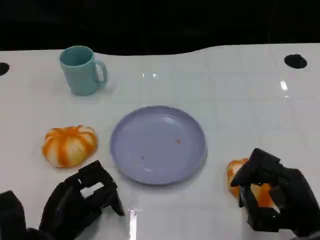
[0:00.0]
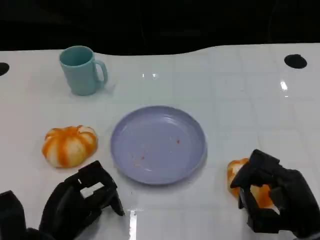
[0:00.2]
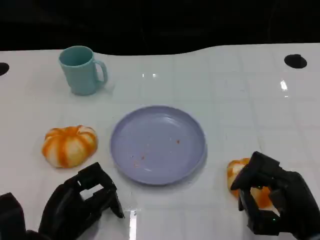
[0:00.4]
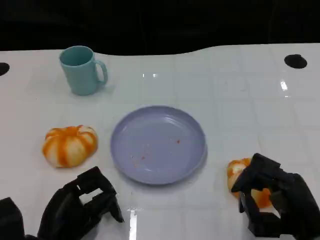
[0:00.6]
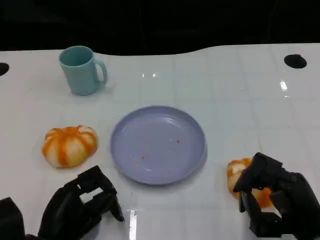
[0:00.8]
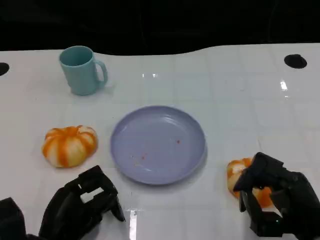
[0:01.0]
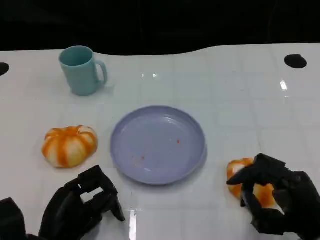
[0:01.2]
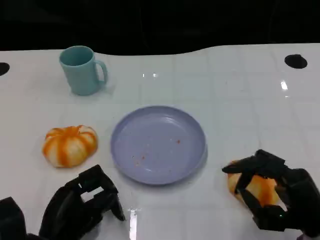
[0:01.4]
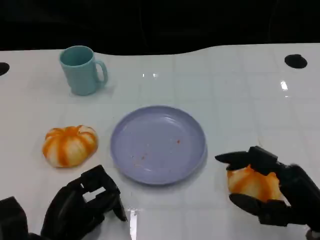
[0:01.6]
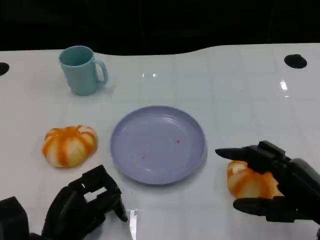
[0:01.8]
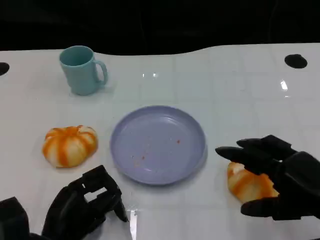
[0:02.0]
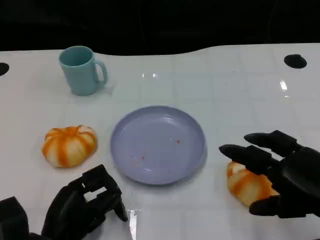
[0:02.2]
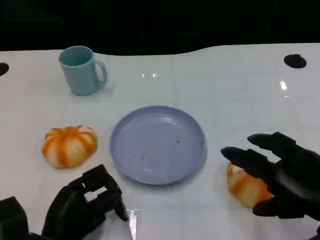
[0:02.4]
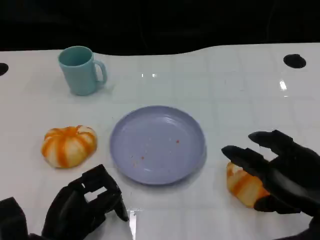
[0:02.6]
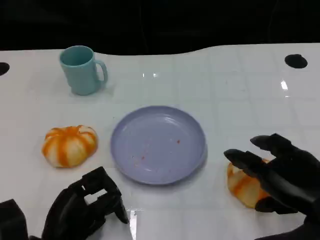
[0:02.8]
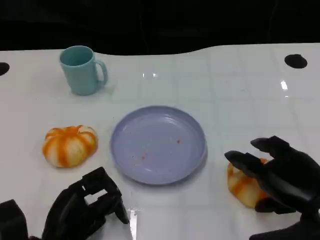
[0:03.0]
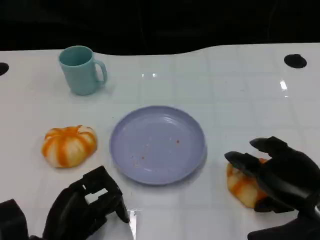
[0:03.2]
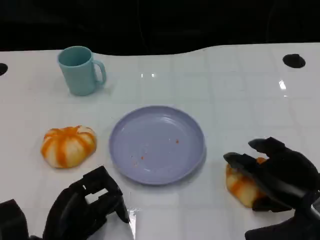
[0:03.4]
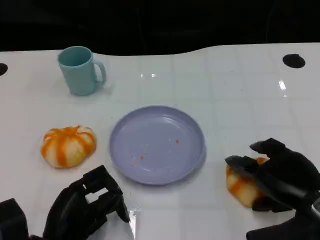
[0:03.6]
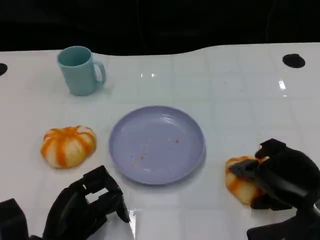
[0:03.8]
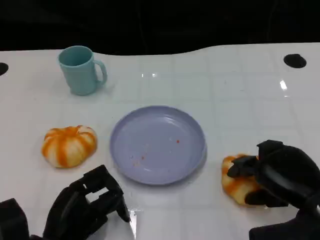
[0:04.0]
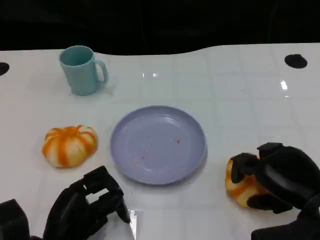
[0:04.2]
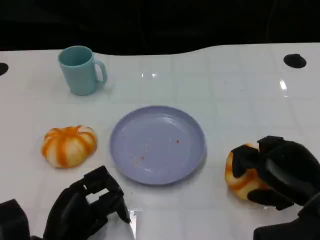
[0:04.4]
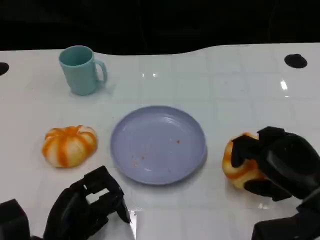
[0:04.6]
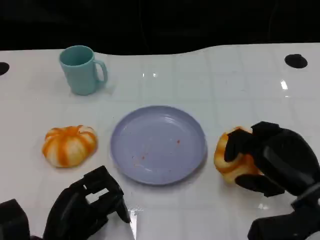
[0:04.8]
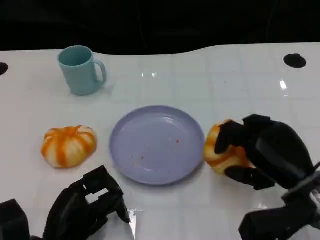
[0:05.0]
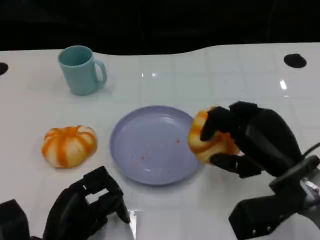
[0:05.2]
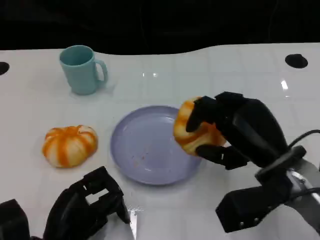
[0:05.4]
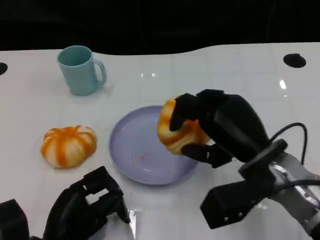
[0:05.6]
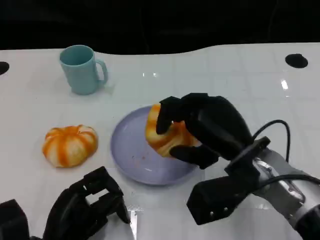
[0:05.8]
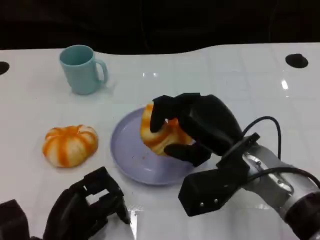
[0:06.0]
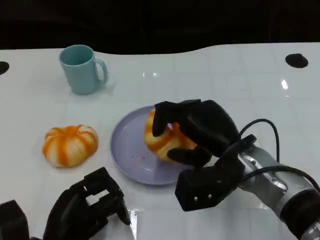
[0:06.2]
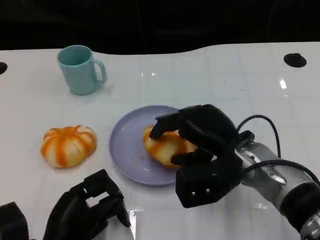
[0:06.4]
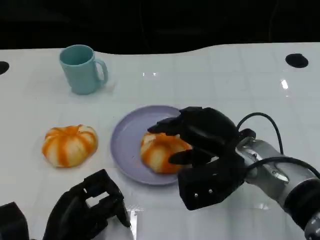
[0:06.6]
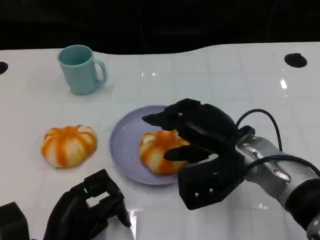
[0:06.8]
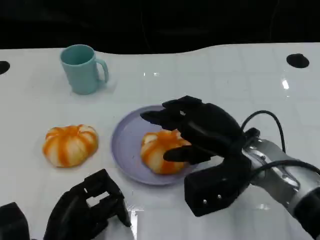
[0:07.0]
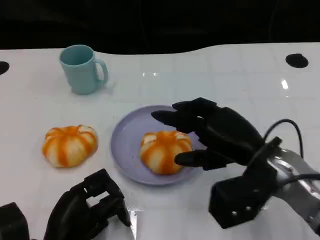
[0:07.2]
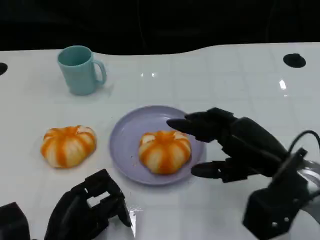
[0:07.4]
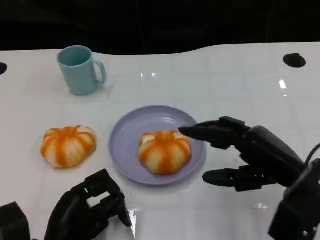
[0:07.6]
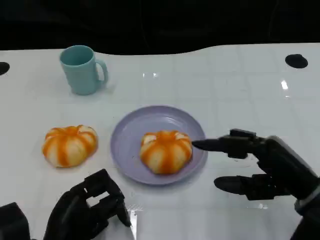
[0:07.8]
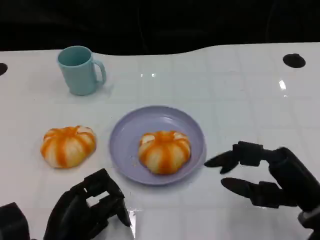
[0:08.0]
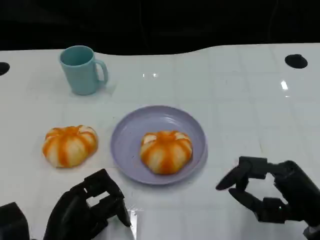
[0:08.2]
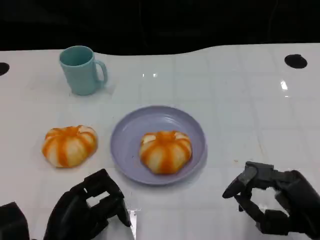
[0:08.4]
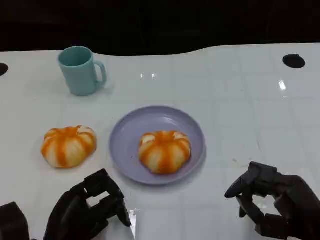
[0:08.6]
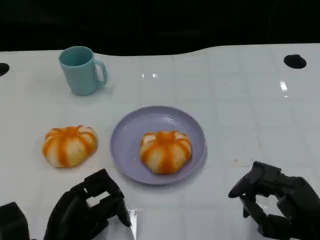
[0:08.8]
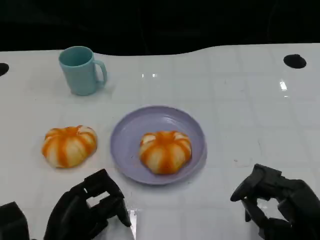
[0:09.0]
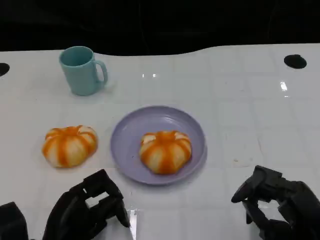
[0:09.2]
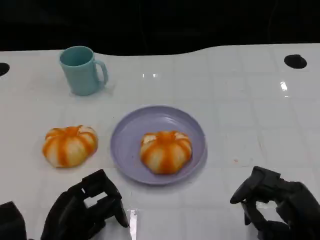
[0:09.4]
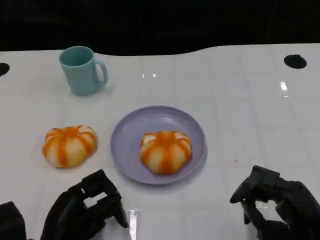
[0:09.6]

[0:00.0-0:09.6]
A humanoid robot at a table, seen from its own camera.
Task of the whole recording: Grasp the bread from the table and place it into the plate.
0:04.8 to 0:06.4: The right hand shifts some 10 cm to the left and forward.
0:06.4 to 0:08.0: The right hand goes some 15 cm to the right and backward.
0:08.0 to 0:09.6: The right hand ends up approximately 5 cm from where it was.

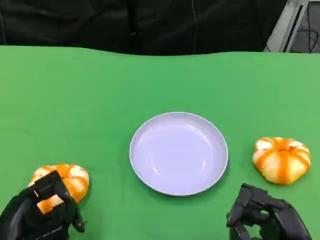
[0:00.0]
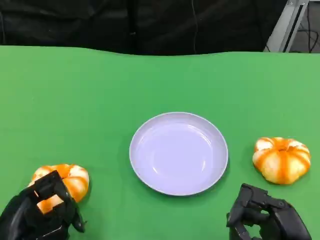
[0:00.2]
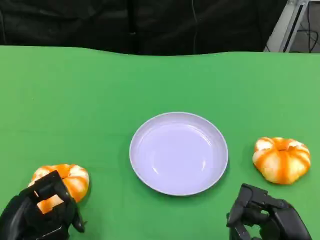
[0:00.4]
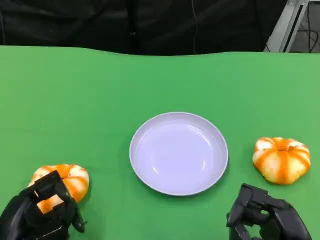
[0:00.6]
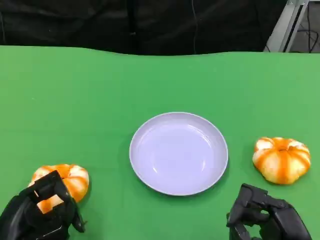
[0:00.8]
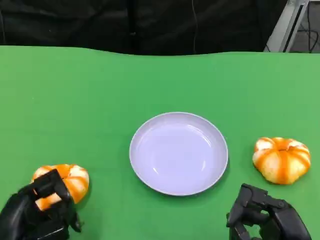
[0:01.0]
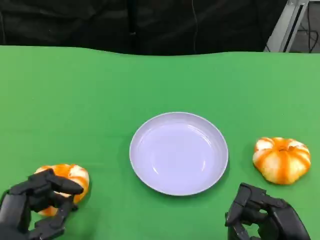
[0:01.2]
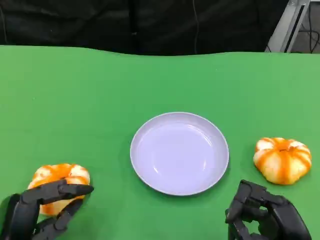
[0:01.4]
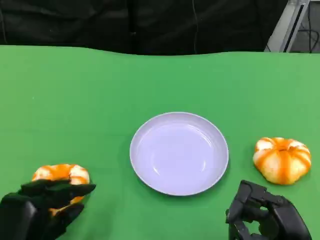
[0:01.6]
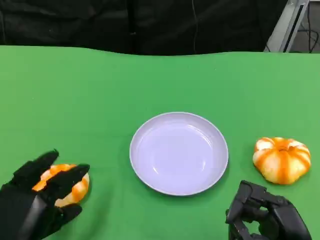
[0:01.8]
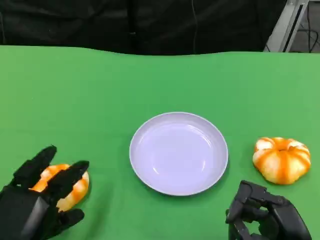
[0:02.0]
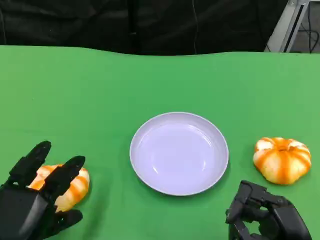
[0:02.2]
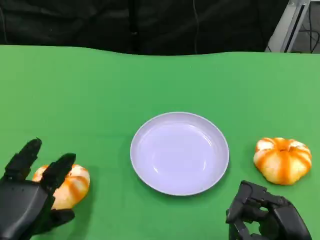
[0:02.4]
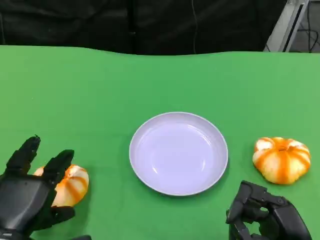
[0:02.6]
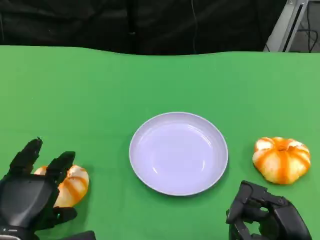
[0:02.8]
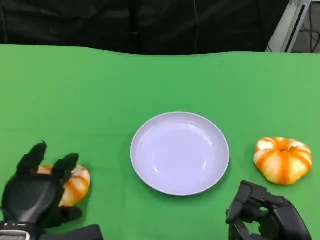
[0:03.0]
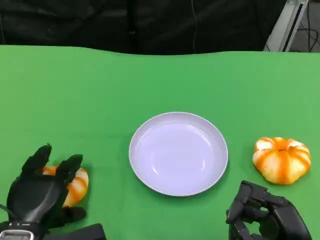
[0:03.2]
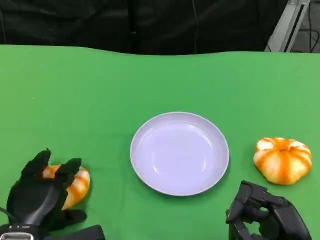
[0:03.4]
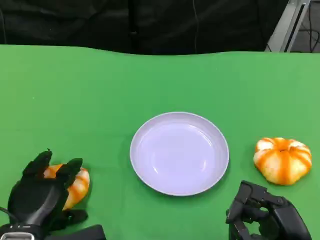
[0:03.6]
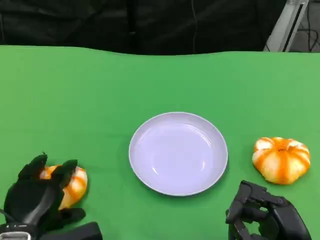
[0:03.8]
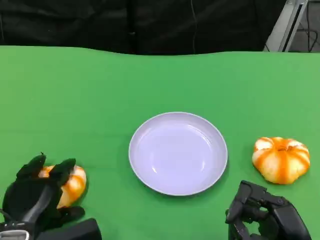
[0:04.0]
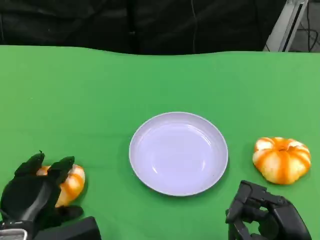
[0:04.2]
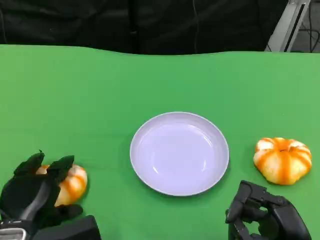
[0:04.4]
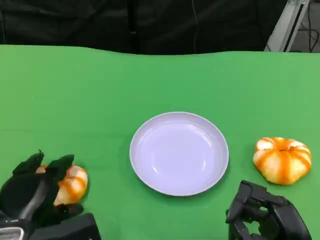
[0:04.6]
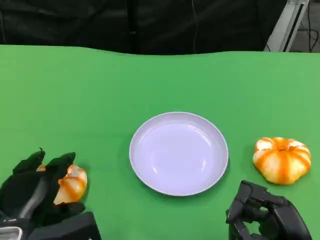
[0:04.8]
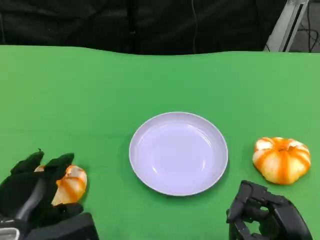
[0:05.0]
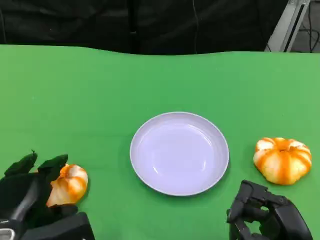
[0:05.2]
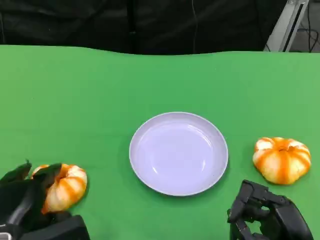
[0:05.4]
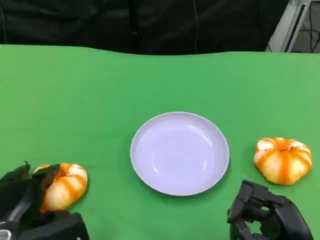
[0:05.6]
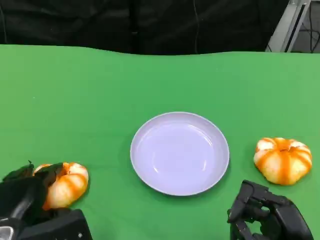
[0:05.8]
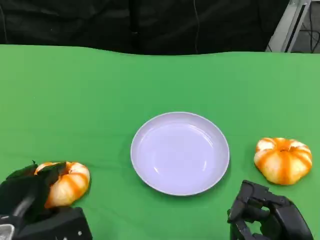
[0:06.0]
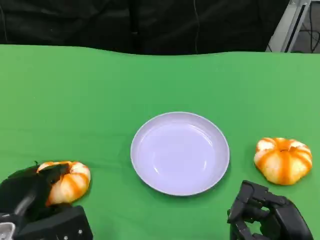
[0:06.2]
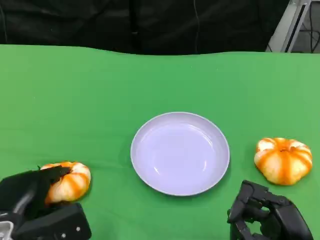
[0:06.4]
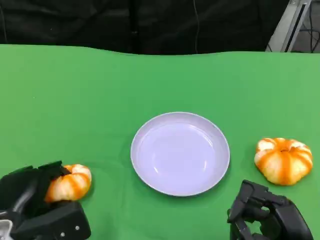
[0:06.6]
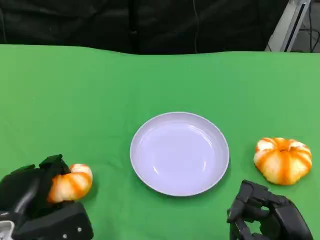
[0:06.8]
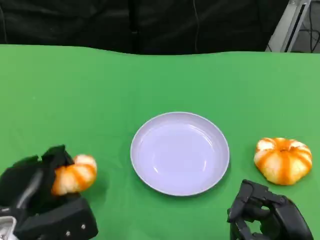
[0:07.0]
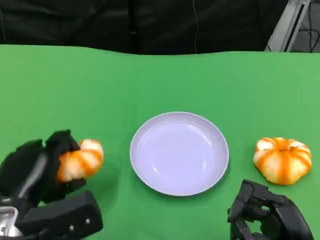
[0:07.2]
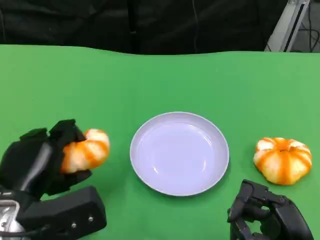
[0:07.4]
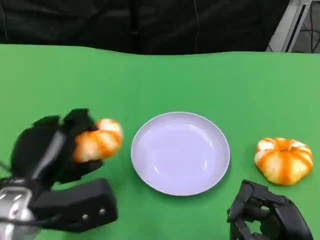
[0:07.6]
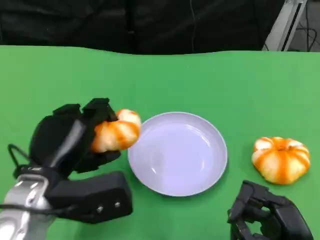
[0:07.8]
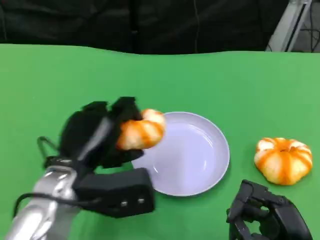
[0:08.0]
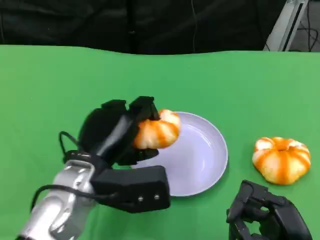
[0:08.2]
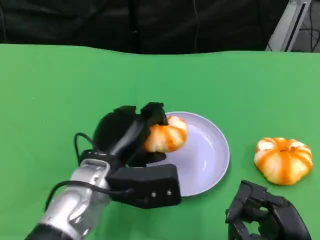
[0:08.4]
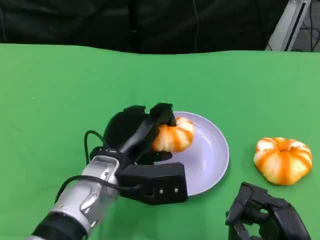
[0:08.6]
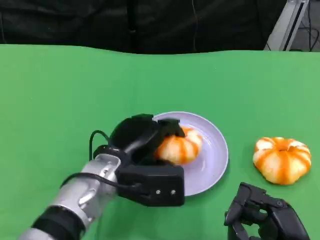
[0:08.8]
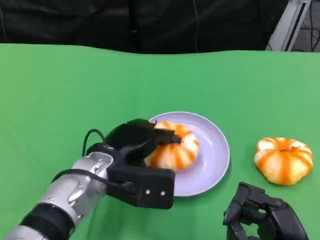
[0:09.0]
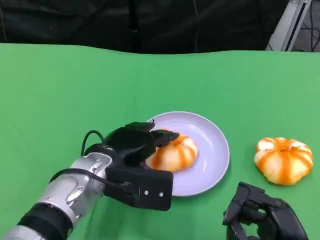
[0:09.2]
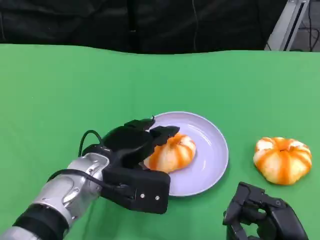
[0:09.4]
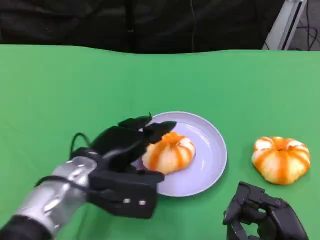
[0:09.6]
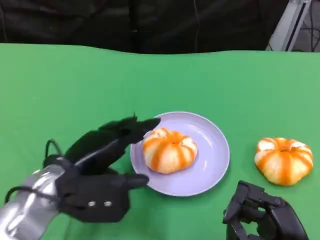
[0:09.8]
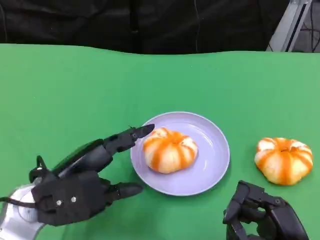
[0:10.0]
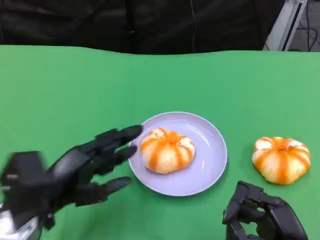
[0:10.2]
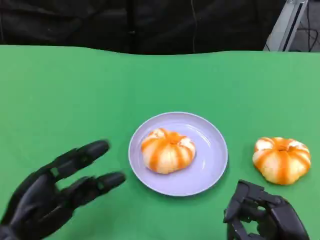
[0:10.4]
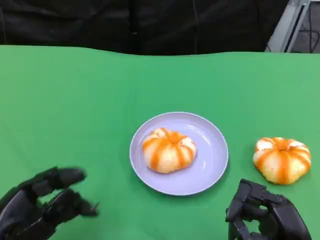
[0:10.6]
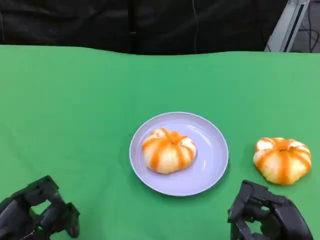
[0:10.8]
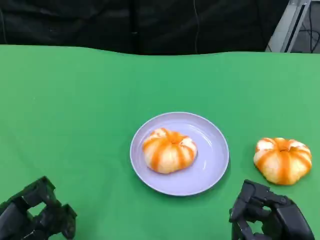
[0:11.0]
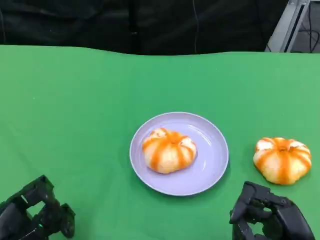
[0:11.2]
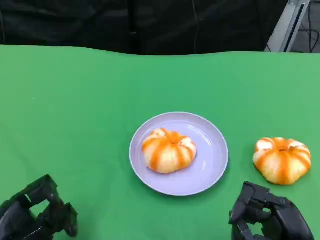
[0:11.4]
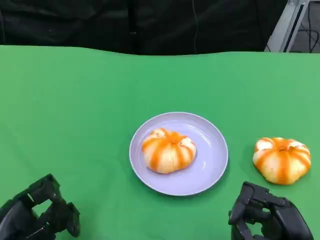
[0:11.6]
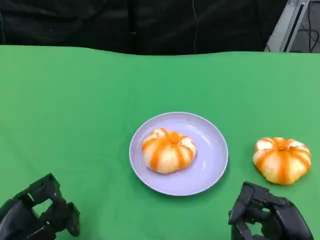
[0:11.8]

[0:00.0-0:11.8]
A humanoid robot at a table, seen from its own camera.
Task of the whole recording: Grasp the bread from the table and place it into the plate.
0:01.4 to 0:03.0: The left hand shifts by some 5 cm.
0:03.0 to 0:06.0: The hands stay close to where they were, moving slightly.
0:06.0 to 0:07.4: The left hand is displaced upward by some 5 cm.
0:07.4 to 0:08.8: The left hand is displaced to the right and forward by some 15 cm.
0:08.8 to 0:10.4: The left hand heads to the left and backward, covering some 20 cm.
0:10.4 to 0:11.8: The hands stay close to where they were, moving slightly.

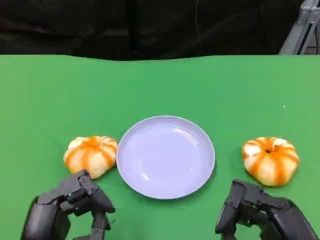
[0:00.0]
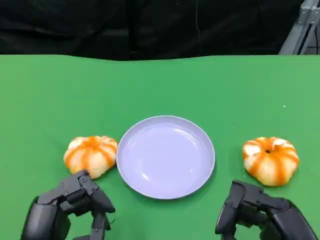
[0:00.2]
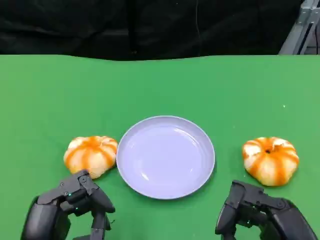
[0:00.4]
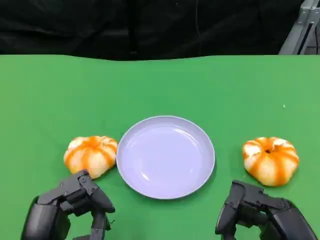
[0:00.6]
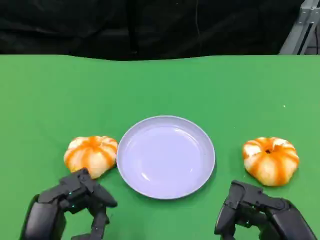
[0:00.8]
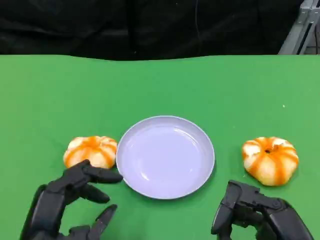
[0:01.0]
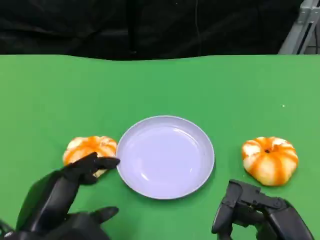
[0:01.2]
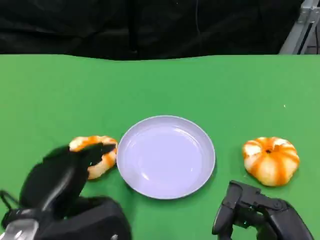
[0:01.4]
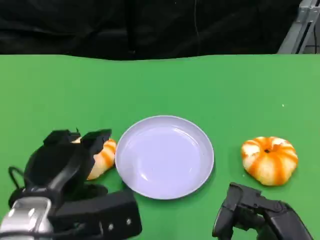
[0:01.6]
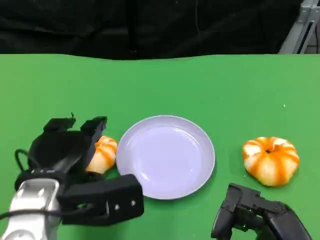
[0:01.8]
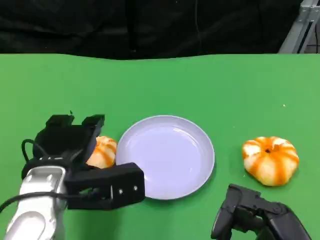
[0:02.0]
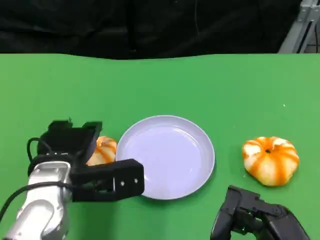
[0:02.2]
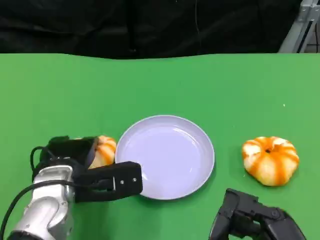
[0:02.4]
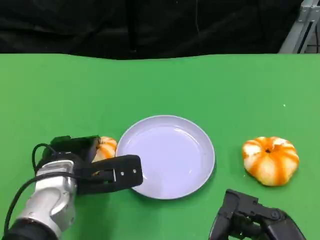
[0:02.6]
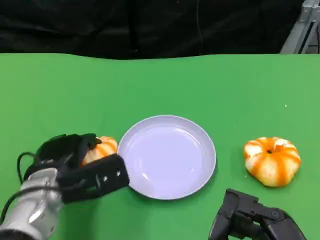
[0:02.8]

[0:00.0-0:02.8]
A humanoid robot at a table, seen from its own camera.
Task of the whole recording: Grasp the bread from the table and place it into the plate.
0:00.0 to 0:01.4: The left hand moves forward, some 5 cm.
0:01.4 to 0:02.8: The left hand heads forward and downward, covering approximately 10 cm.
